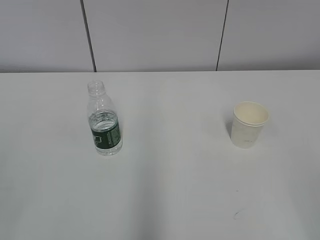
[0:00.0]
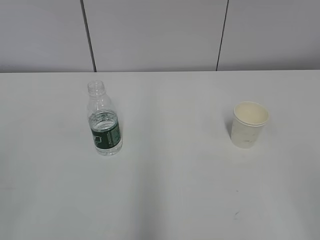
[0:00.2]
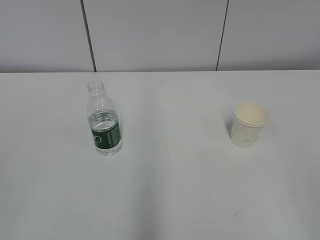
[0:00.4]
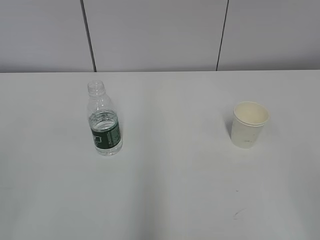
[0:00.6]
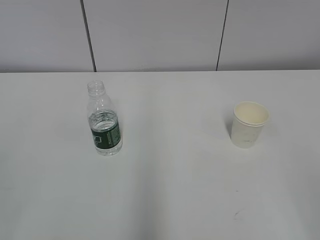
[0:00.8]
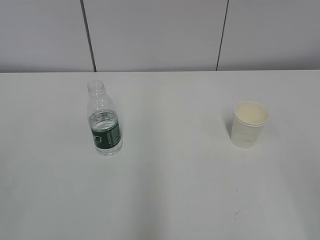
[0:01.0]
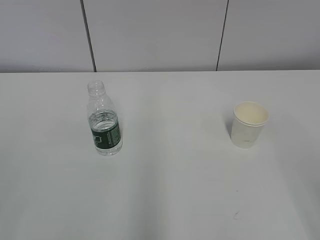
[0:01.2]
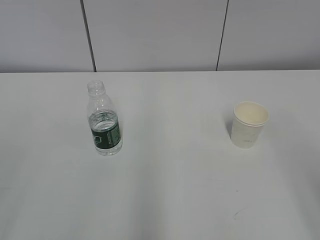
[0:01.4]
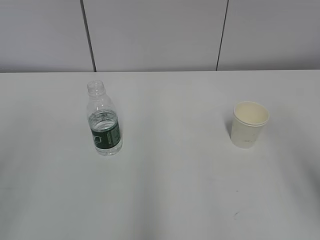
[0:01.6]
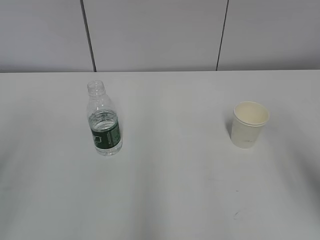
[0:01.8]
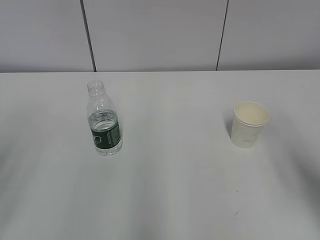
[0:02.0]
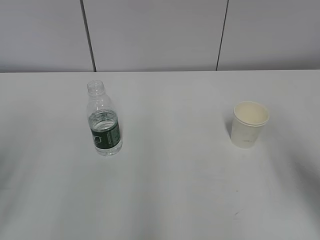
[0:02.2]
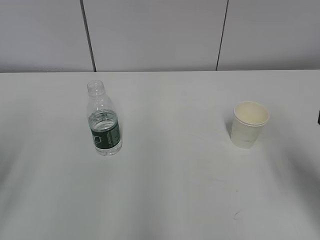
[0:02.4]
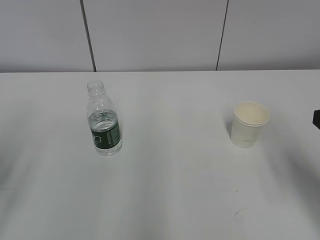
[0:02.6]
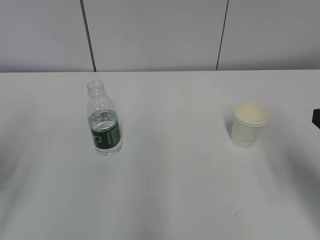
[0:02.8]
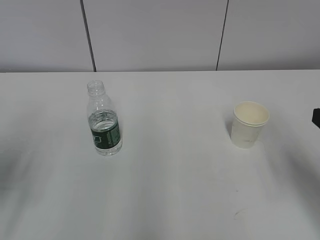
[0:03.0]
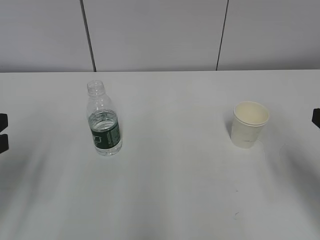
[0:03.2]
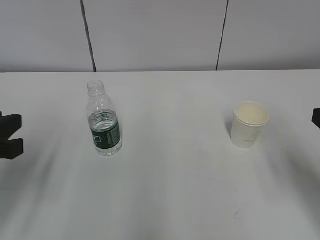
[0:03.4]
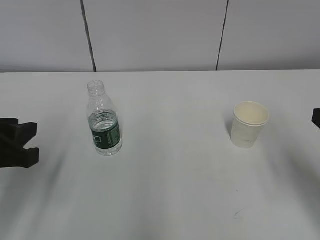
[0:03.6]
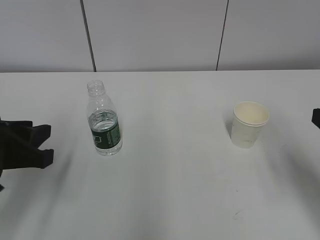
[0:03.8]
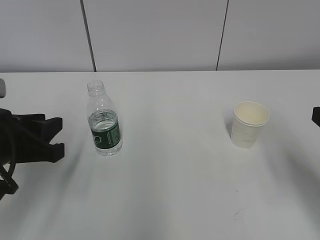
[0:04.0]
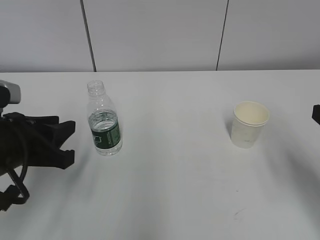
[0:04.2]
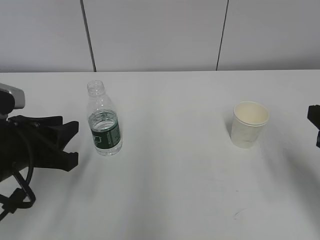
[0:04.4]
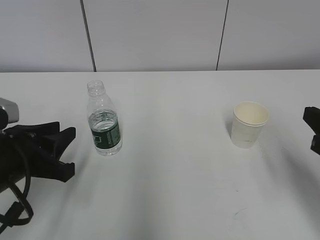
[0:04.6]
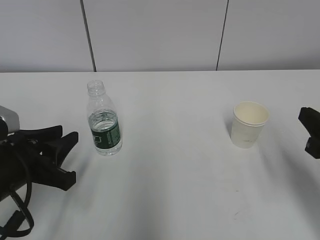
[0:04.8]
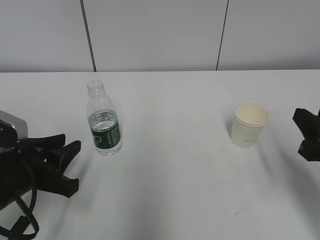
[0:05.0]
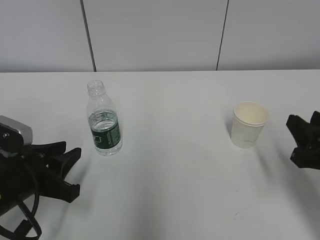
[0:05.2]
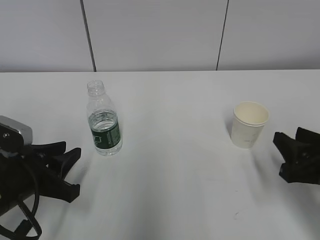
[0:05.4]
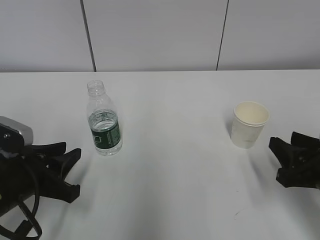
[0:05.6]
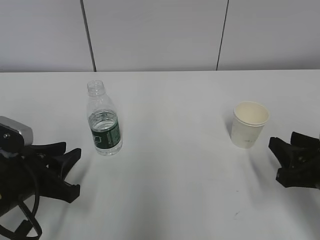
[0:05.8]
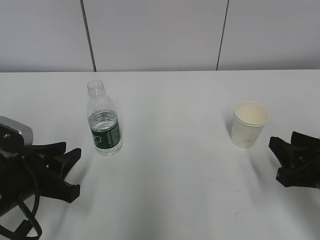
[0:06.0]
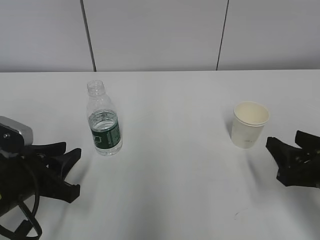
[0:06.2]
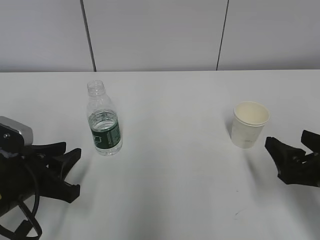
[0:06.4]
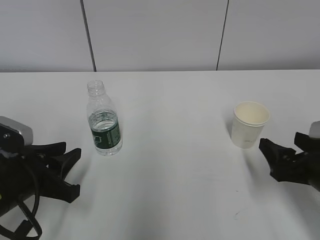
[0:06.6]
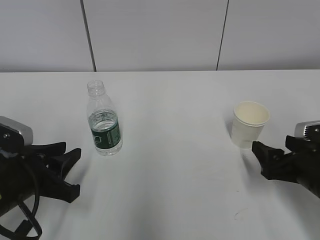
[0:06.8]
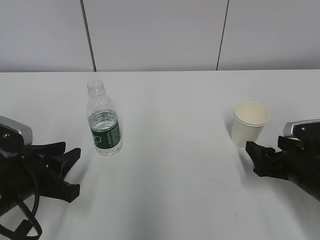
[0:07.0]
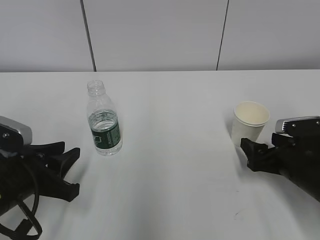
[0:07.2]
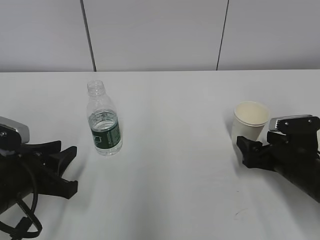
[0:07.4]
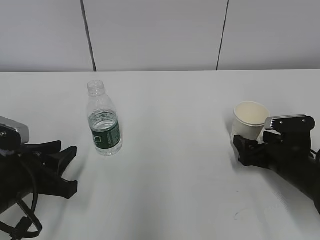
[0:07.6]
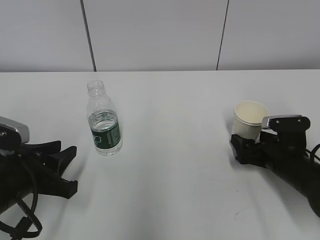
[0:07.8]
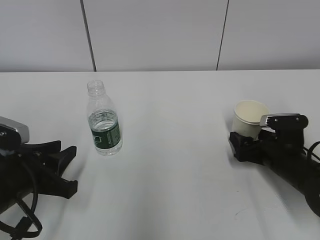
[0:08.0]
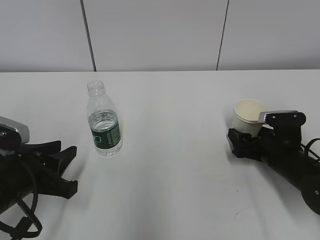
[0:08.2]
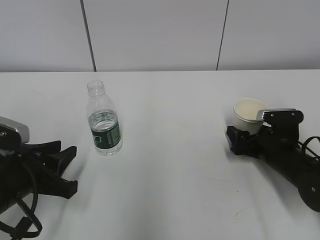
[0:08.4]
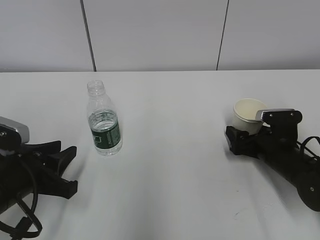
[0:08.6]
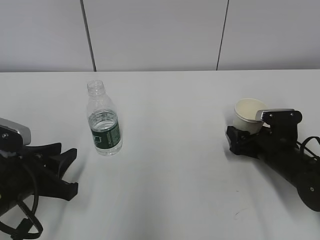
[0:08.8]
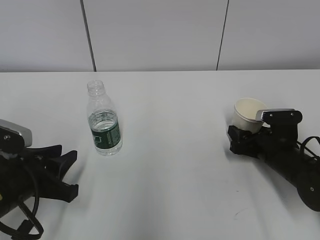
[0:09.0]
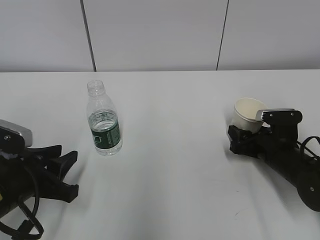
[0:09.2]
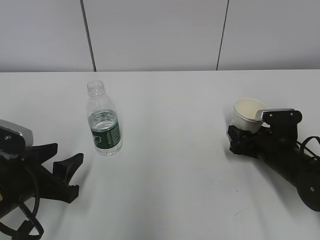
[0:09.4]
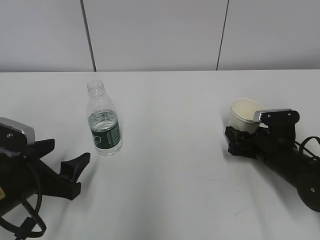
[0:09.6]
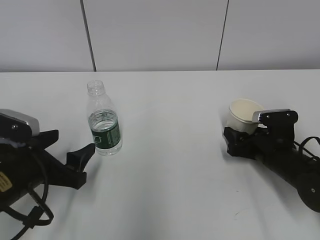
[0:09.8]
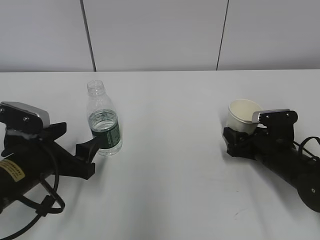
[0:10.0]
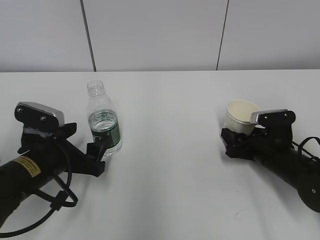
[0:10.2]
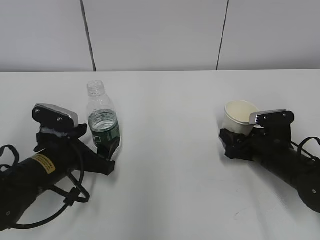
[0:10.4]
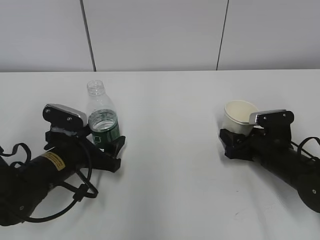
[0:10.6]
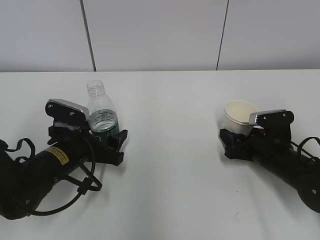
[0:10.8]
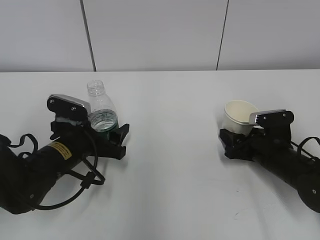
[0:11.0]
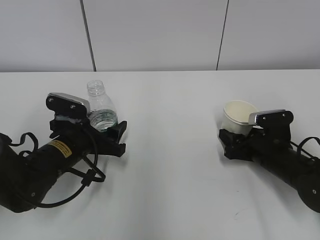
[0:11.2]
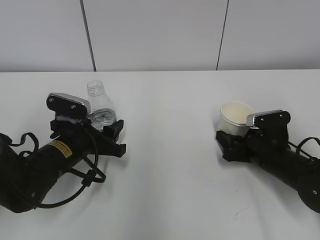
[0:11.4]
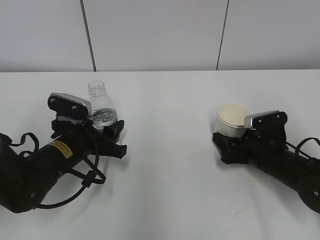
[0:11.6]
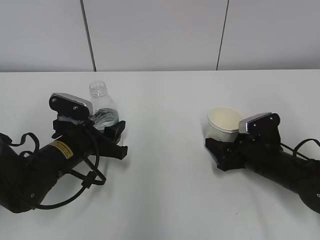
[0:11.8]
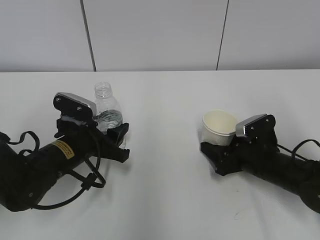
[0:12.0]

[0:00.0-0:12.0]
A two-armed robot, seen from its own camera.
Step, 0:00.0 to 0:07.4: Grab the paper cup with the right hand.
Step, 0:07.6 to 0:09.4: Grab the water bottle with the left hand.
0:01.6 to 0:03.0: The right gripper goes approximately 10 cm forward and downward.
0:03.0 to 0:04.4: The left gripper moves to the right and downward, some 10 cm.
0:04.4 to 0:06.0: The right gripper heads downward, covering roughly 10 cm. The left gripper shifts by some 5 cm.
0:06.0 to 0:07.6: The right gripper shifts some 10 cm forward and downward, and opens.
0:07.6 to 0:09.0: The right gripper closes up.
0:09.0 to 0:10.4: The left gripper travels forward by about 5 cm, and opens up.
0:10.4 to 0:12.0: The left gripper closes up.

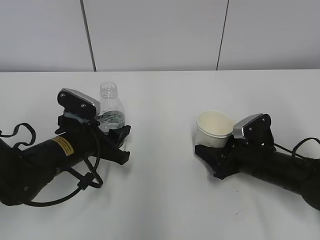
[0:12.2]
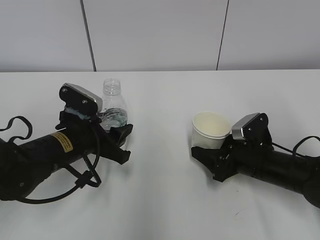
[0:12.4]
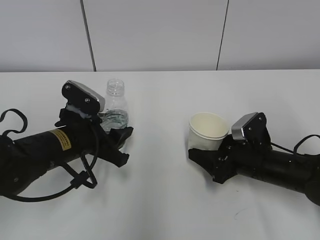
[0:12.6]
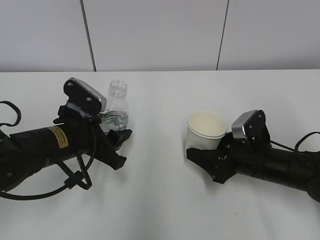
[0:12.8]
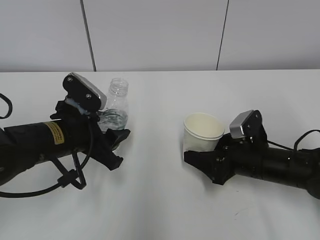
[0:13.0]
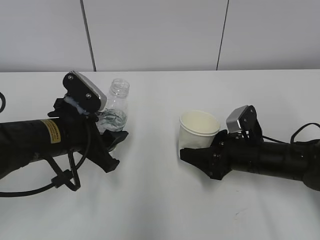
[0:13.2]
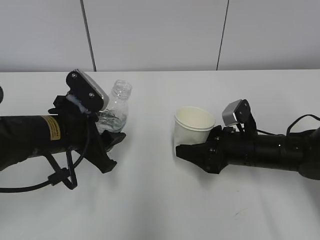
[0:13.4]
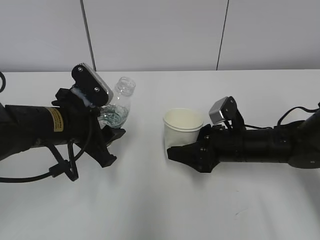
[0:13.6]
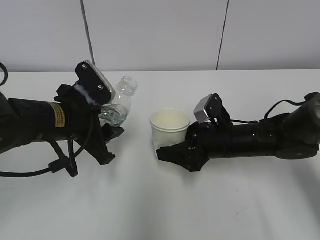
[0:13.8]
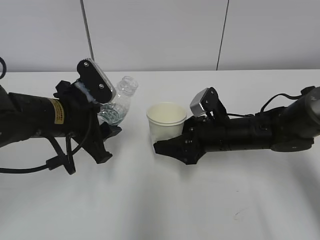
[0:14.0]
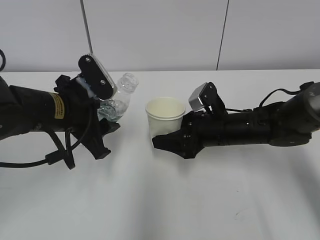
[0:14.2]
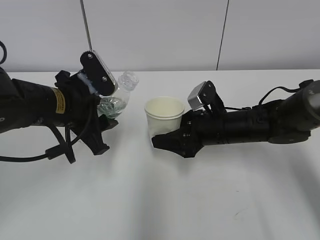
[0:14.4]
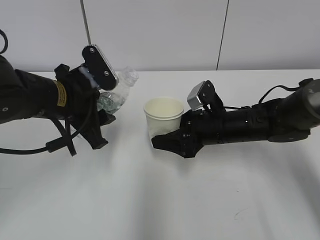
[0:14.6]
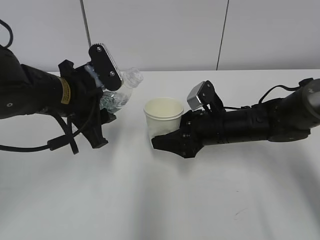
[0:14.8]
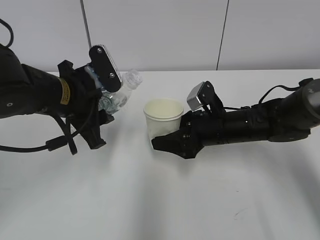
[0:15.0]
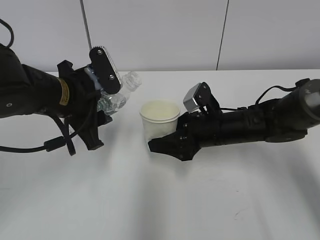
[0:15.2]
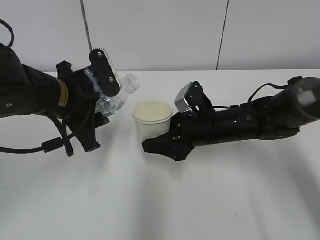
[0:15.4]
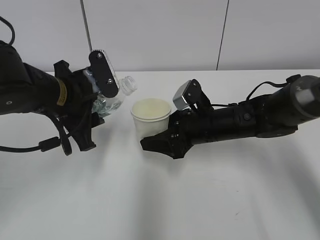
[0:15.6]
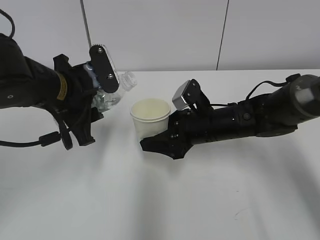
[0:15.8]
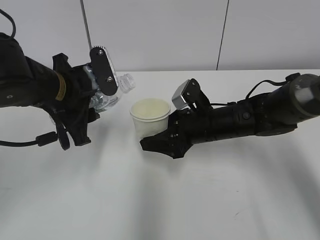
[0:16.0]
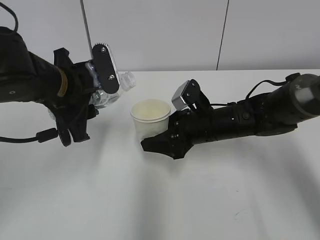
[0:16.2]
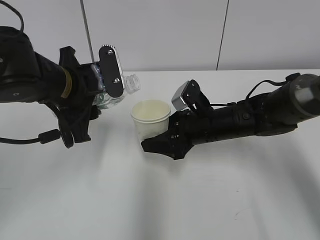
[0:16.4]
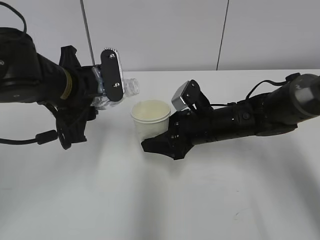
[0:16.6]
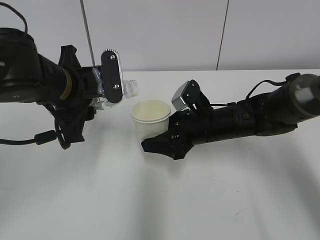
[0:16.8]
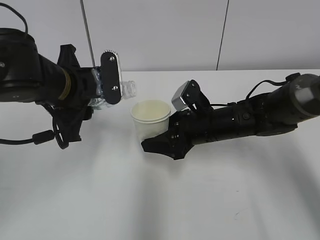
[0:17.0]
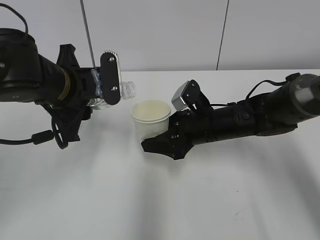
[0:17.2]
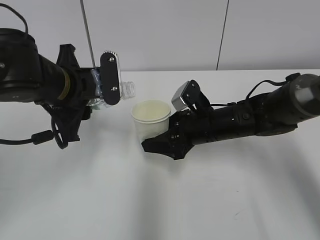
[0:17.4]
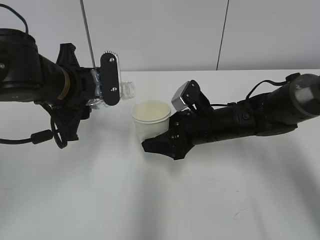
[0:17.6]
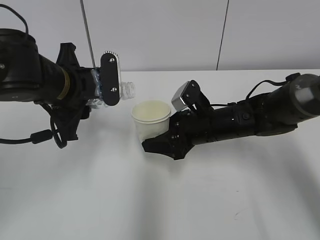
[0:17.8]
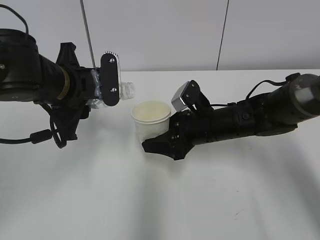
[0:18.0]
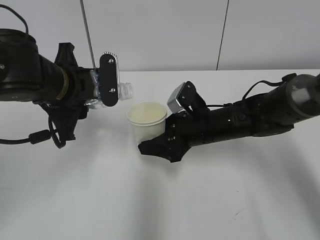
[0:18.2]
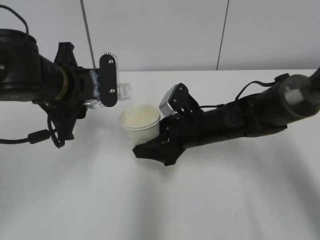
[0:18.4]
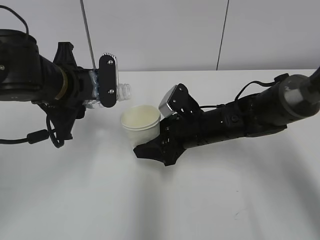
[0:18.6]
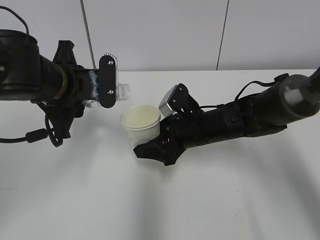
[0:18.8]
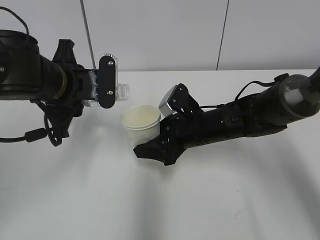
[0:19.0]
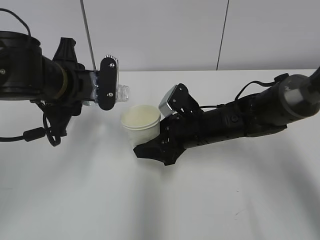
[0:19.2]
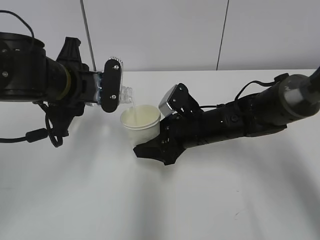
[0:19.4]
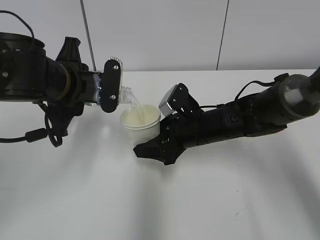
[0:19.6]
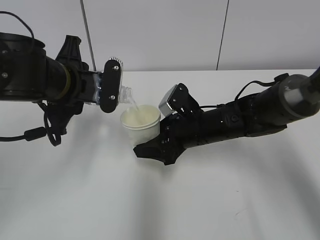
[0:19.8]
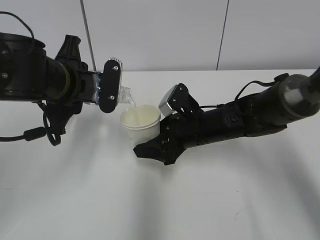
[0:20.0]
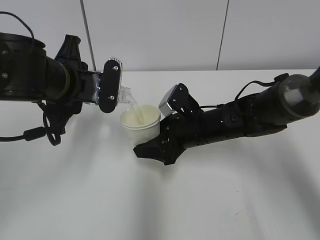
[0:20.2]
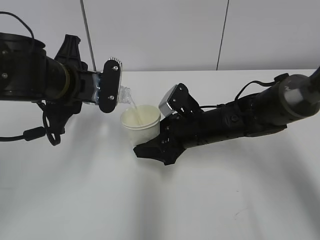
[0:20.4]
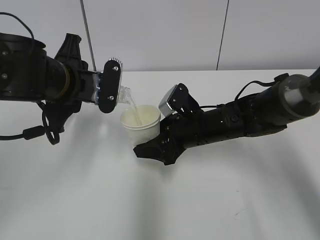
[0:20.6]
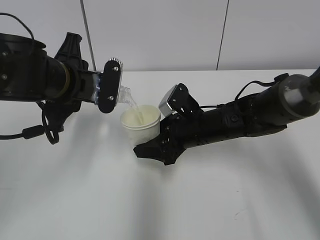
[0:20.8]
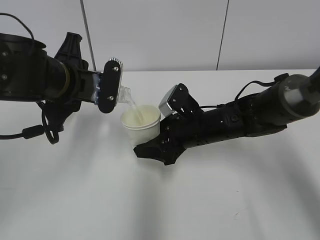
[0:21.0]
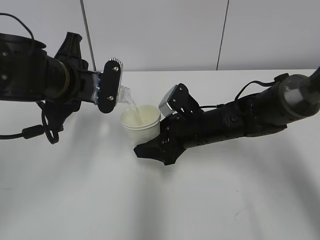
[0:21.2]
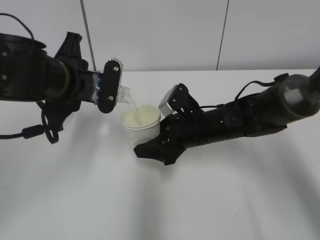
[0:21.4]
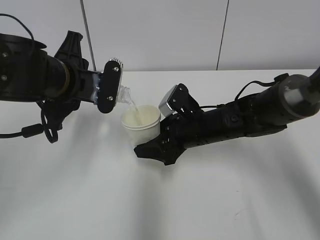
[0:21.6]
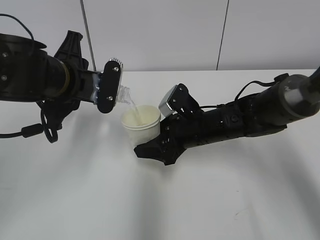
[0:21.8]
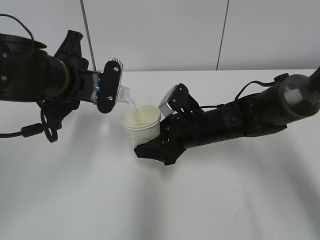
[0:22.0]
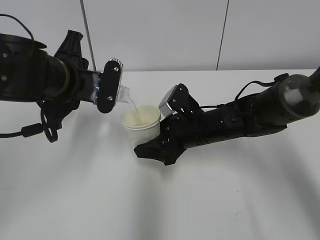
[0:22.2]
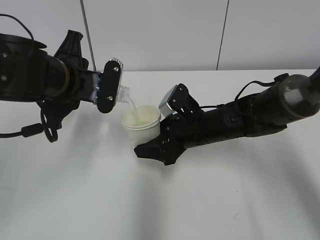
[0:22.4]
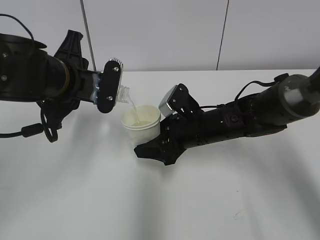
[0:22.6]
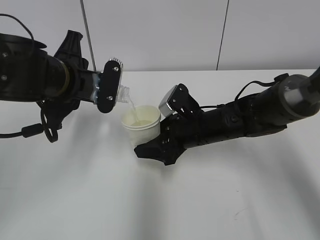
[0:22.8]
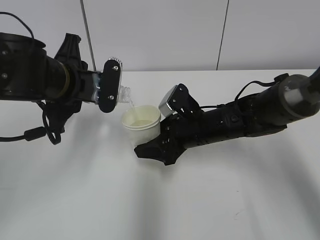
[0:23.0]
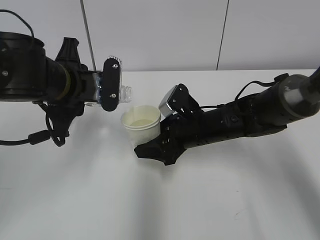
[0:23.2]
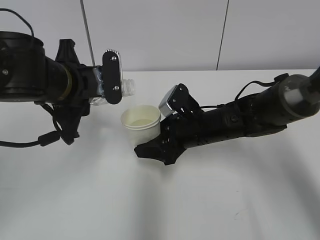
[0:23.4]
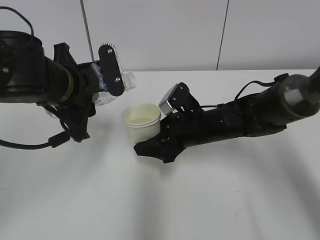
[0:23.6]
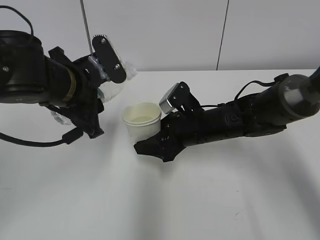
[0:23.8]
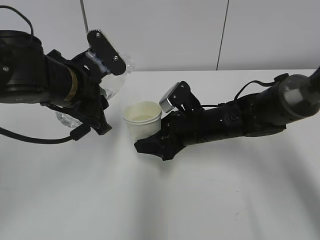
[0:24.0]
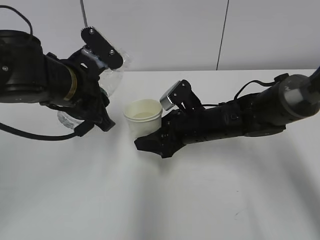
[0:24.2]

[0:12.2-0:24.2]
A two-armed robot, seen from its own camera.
Step, 0:12.2 to 0:16.0: Lift the paper cup with the right hand.
Step, 0:16.2 to 0:19.4: Fill water with the right hand.
Step, 0:16.2 to 0:19.4: Pour water with the left hand.
Step, 0:19.6 to 0:21.2: Collect water with the left hand.
0:12.2 to 0:13.8: The right gripper heads to the left, covering approximately 5 cm; the left gripper heads upward, covering about 5 cm.
0:16.6 to 0:18.2: There are only small adjustments of the grippers.
0:18.2 to 0:19.8: The grippers stay close to where they were, moving slightly.
0:19.8 to 0:21.2: Both grippers stay put.
0:21.2 to 0:22.6: Neither gripper changes place.
